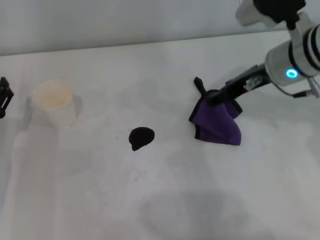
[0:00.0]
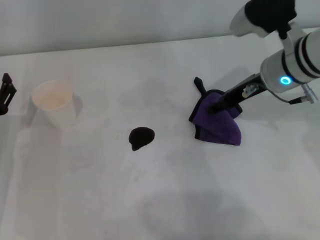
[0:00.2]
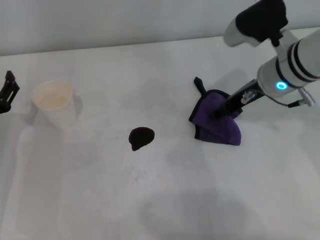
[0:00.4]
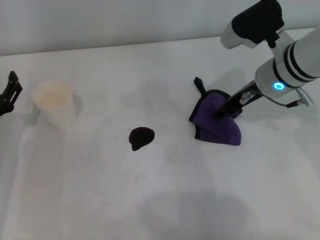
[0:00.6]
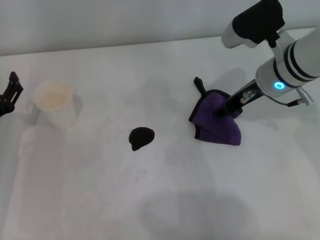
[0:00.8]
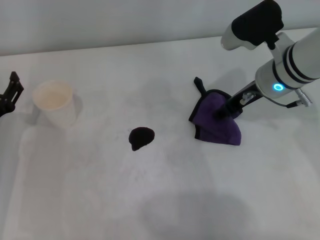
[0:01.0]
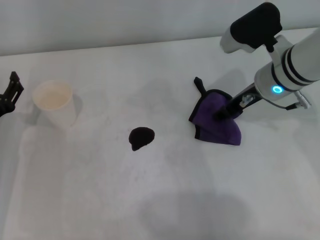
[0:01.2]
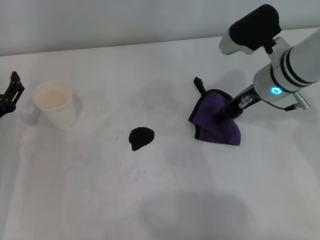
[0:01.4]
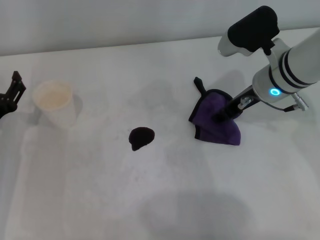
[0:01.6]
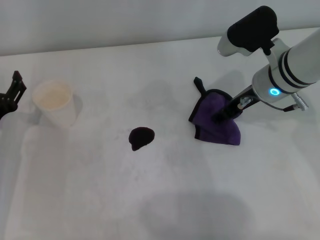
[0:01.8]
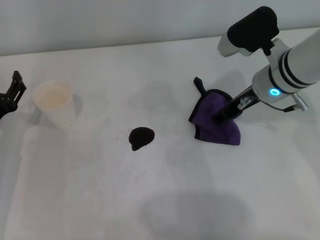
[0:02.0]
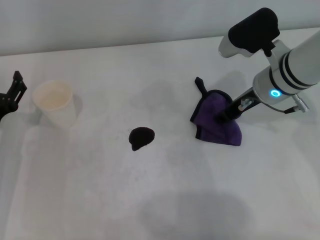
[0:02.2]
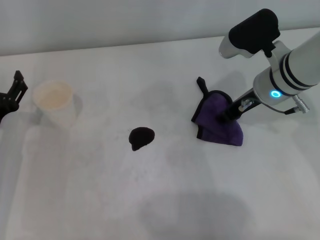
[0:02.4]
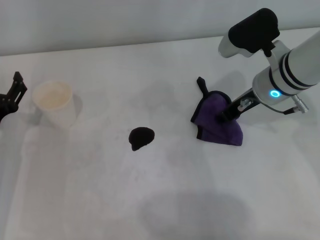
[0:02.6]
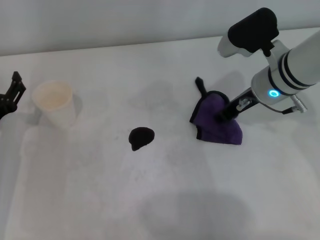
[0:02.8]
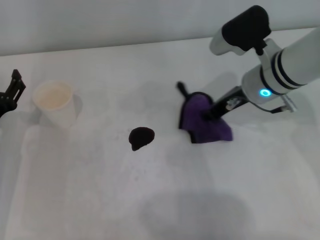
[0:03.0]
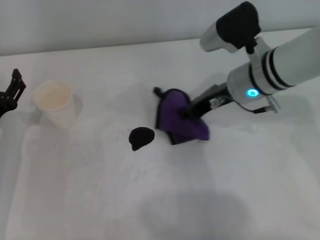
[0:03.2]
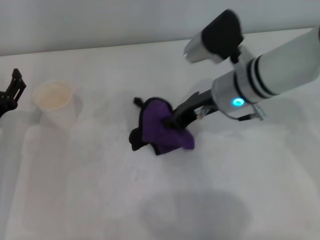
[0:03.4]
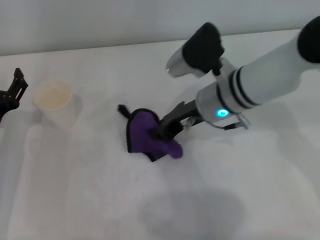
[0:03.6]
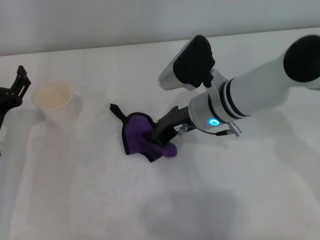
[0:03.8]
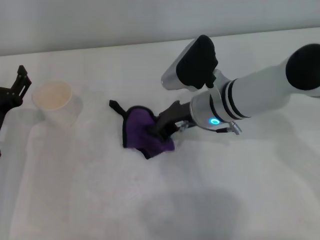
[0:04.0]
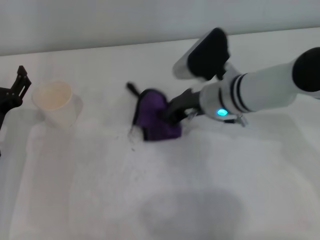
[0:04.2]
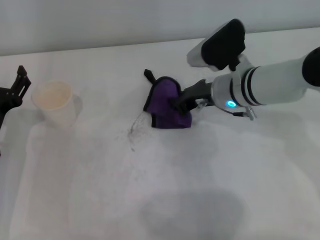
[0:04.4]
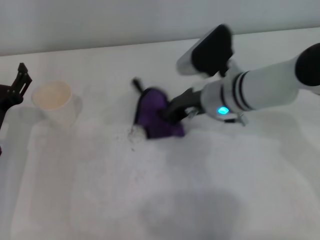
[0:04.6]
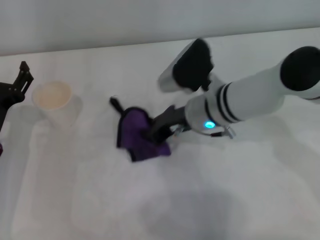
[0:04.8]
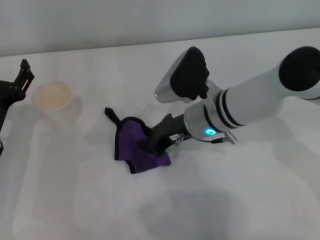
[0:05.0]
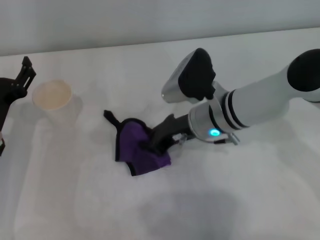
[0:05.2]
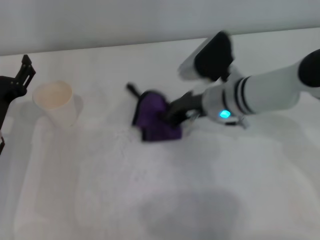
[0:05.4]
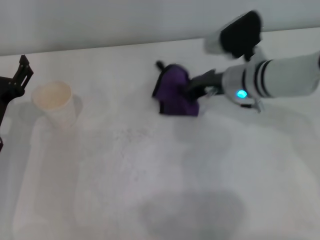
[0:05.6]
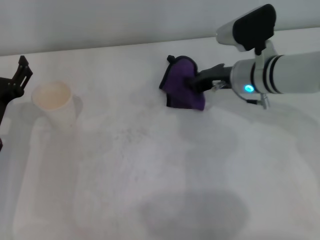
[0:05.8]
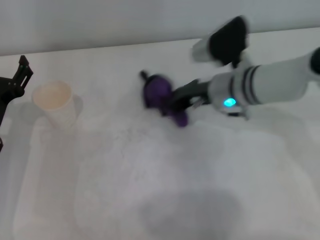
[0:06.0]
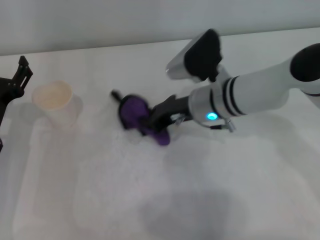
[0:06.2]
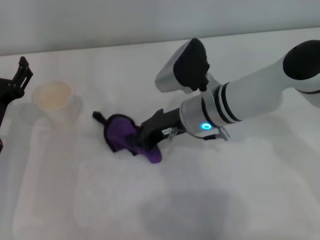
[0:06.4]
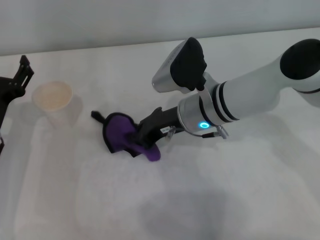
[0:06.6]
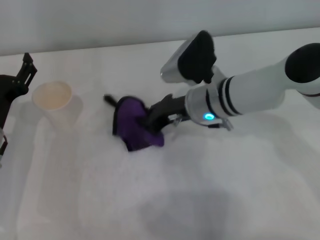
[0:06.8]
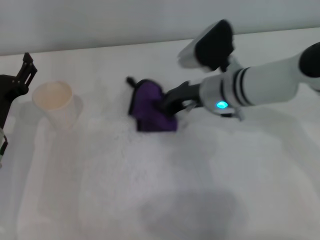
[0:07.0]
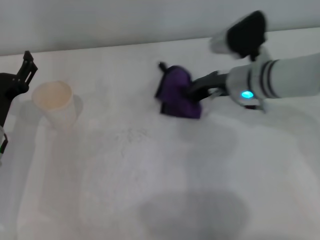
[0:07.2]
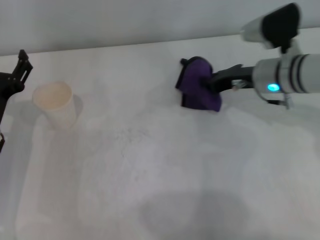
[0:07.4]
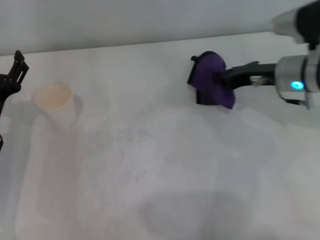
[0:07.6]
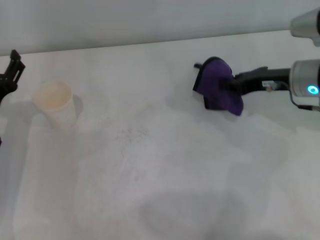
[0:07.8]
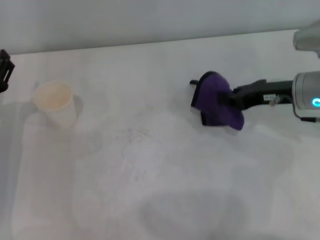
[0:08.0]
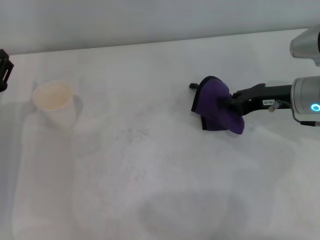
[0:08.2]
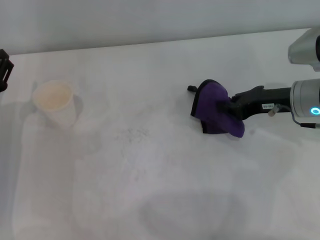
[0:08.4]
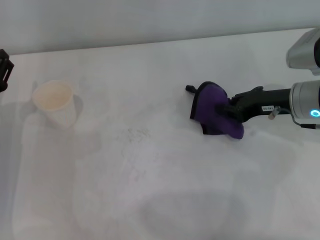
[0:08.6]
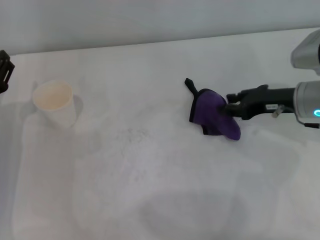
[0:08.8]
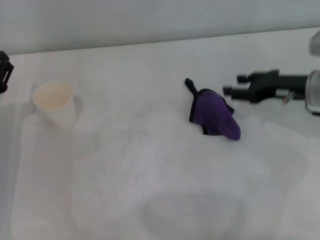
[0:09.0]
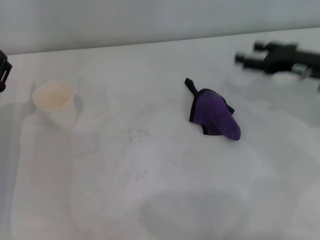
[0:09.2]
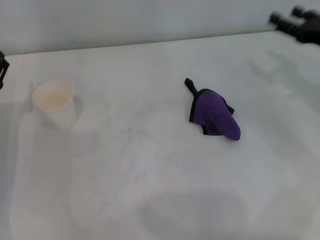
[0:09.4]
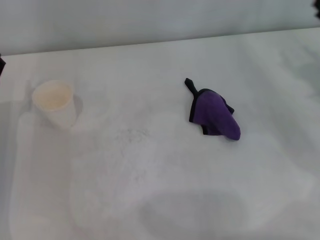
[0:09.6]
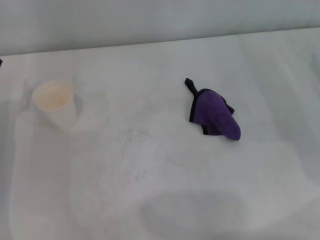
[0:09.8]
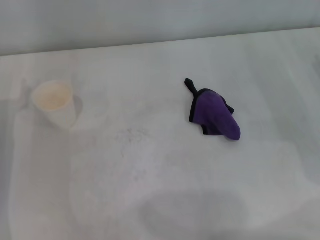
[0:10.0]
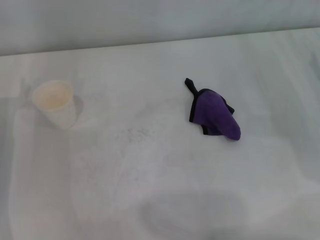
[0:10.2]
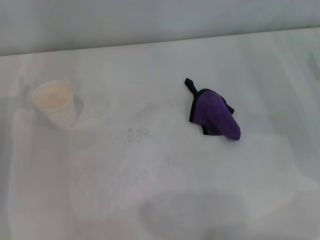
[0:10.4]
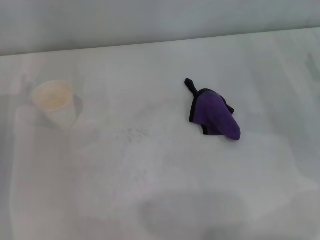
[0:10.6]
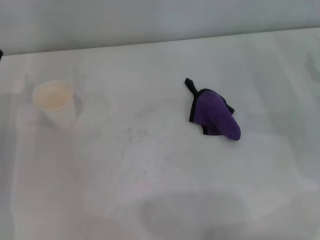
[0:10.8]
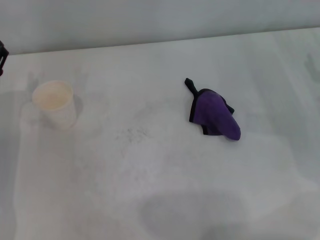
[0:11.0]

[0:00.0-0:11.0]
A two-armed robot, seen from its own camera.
Step, 0:00.0 to 0:02.2: Grasp the rag with the right gripper.
Step, 0:02.6 to 0:07.2: Wipe the stains off the table with the right gripper.
Step, 0:07.6 to 0:08.6: Place the rag on the table with the right gripper.
0:00.0 to 0:01.6: The right gripper moves some 5 cm, and closes its fingers.
0:01.6 to 0:03.2: The right gripper closes up.
0:03.2 to 0:04.8: The right gripper swings left and right, some 5 cm each way, with 2 reversals.
0:04.8 to 0:06.2: The right gripper moves about 10 cm to the right and comes back.
0:06.2 to 0:07.8: The right gripper moves to the right, roughly 15 cm.
0:07.8 to 0:09.4: The right gripper moves to the right, approximately 10 cm, and opens up.
0:09.4 to 0:11.0: The right gripper travels downward by approximately 5 cm.
